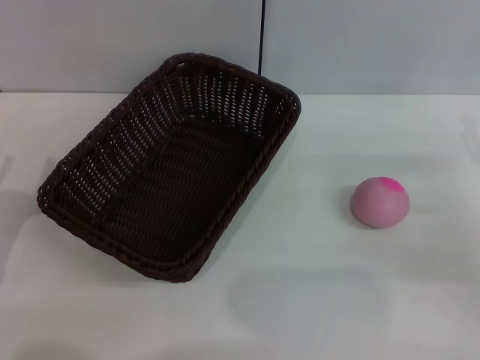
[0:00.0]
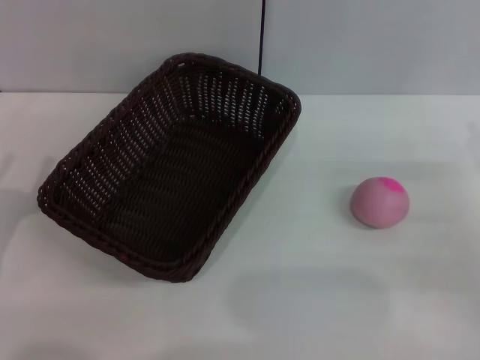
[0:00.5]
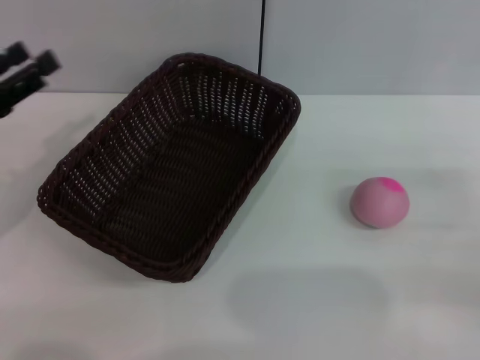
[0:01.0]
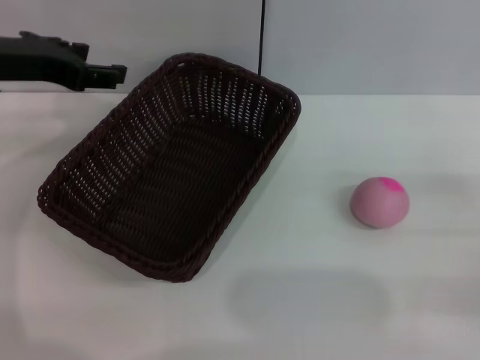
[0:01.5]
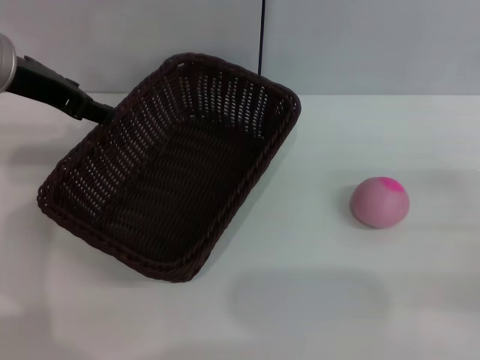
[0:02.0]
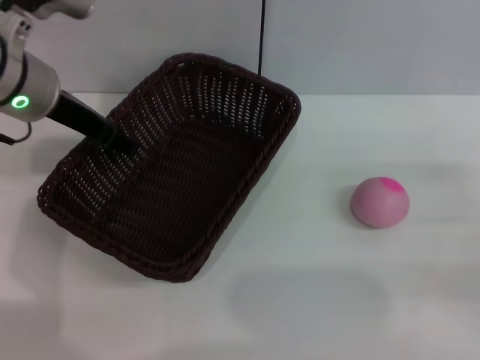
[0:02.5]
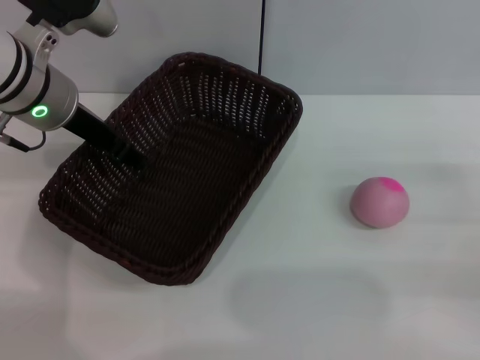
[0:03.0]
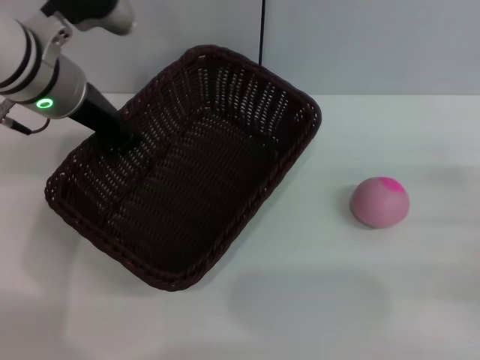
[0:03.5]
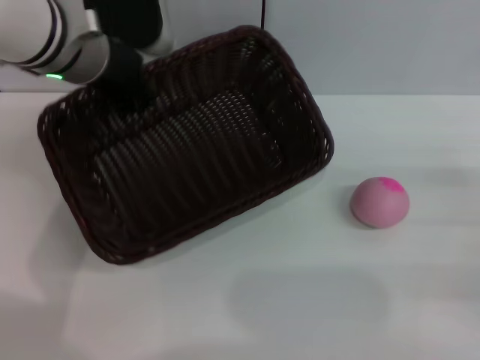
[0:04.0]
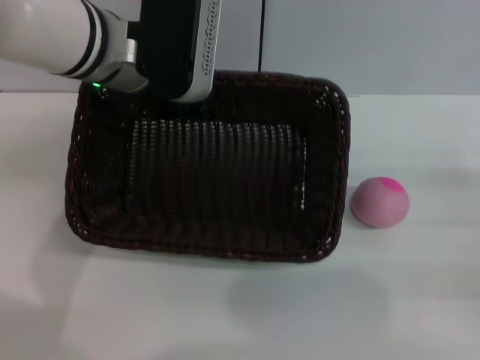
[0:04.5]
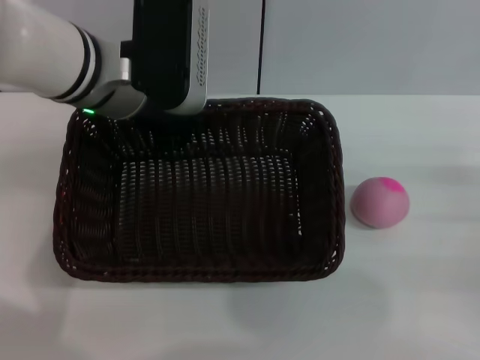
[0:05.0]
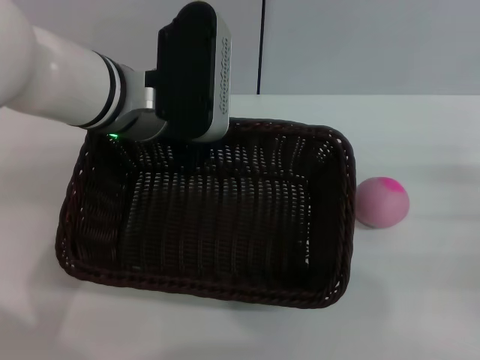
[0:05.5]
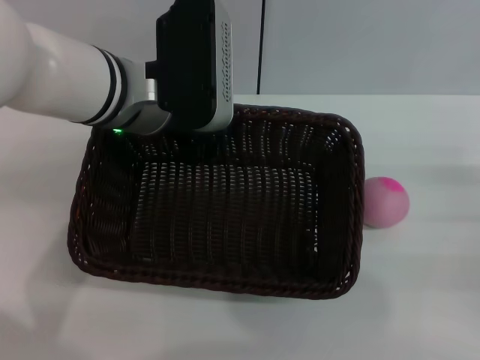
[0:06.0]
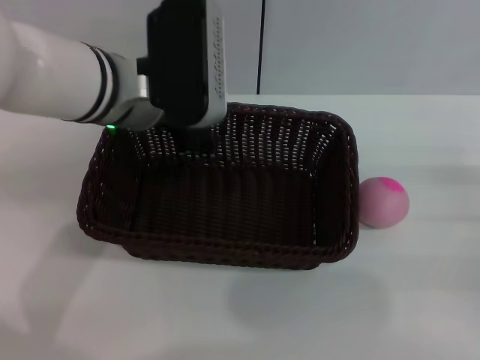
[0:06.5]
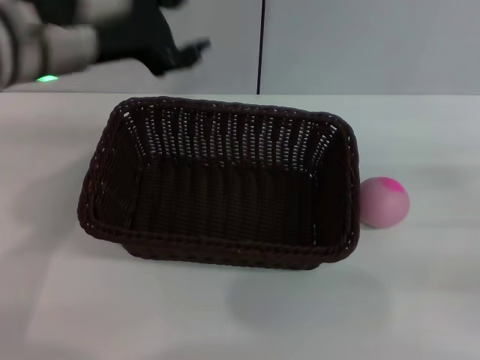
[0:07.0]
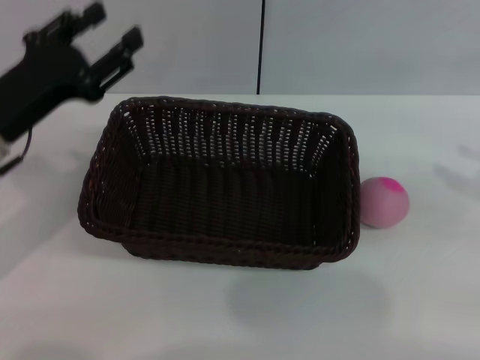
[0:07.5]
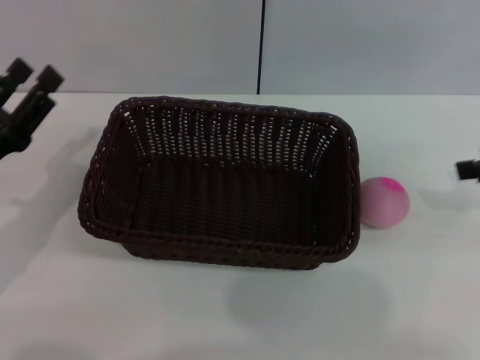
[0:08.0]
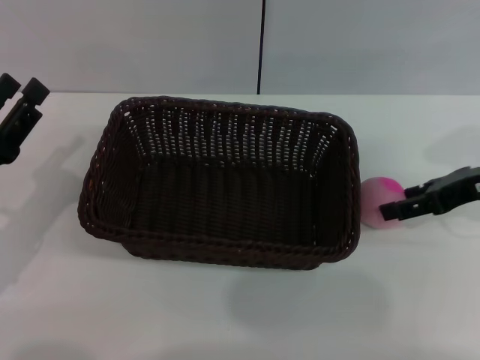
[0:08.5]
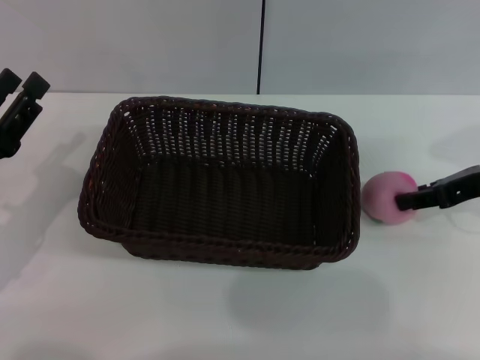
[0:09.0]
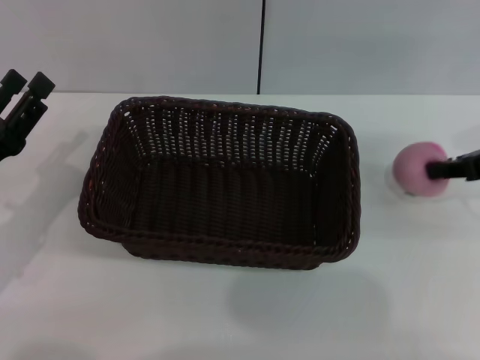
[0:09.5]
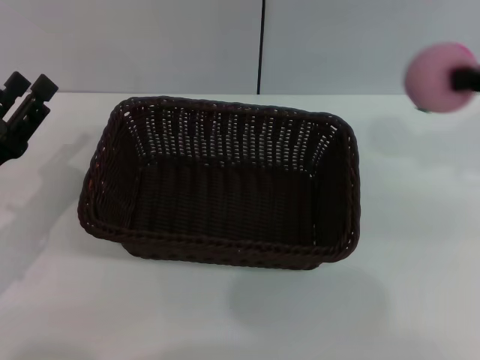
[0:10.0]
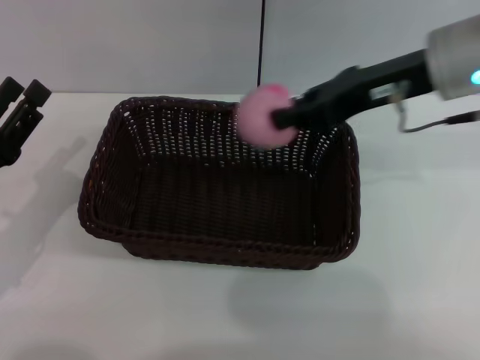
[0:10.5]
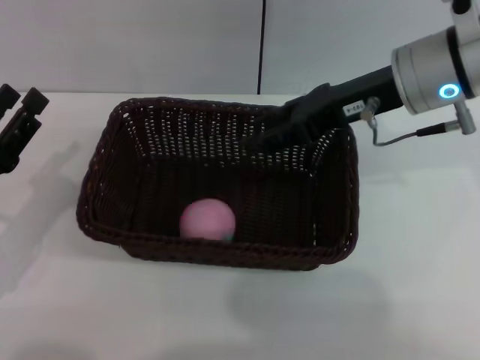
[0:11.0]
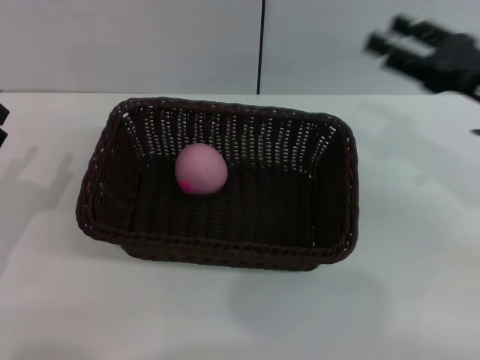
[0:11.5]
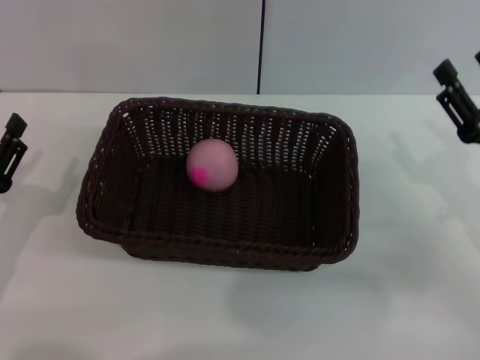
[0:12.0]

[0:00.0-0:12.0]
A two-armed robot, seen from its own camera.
Step, 0:00.0 to 0:04.0: Pick up the dark basket with the left gripper.
Step, 0:04.5 to 0:06.5: Place the dark basket in the center of view with the right gripper.
Step, 0:07.0 to 0:09.5: Pick up the peach with the left gripper.
0:00.0 to 0:02.0: The left gripper shifts roughly 25 cm upward, forward and to the right.
0:02.0 to 0:04.0: The left gripper moves to the right, some 5 cm, and closes its fingers.
0:04.0 to 0:06.0: The left gripper changes place by about 5 cm.
0:06.0 to 0:08.0: The left gripper heads to the left, backward and downward, covering about 25 cm, and opens its fingers, while the right gripper goes roughly 15 cm upward and forward.
0:08.0 to 0:10.0: The right gripper goes roughly 5 cm upward, and closes its fingers.
0:10.0 to 0:12.0: The right gripper travels downward by some 20 cm, and opens.
